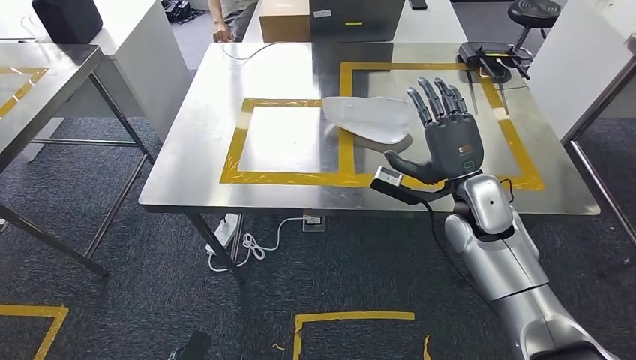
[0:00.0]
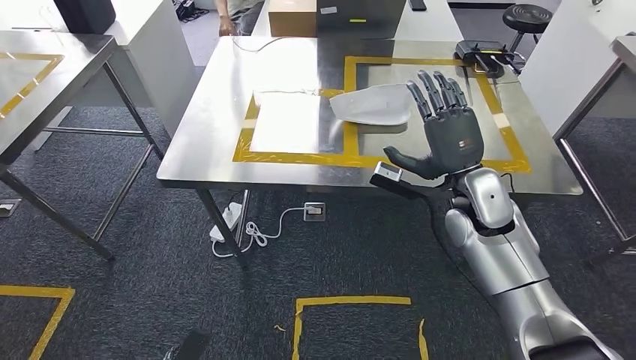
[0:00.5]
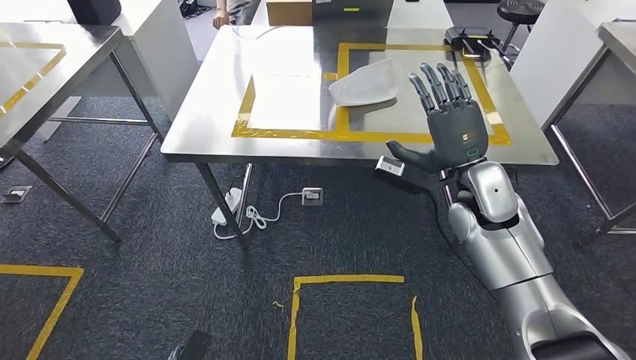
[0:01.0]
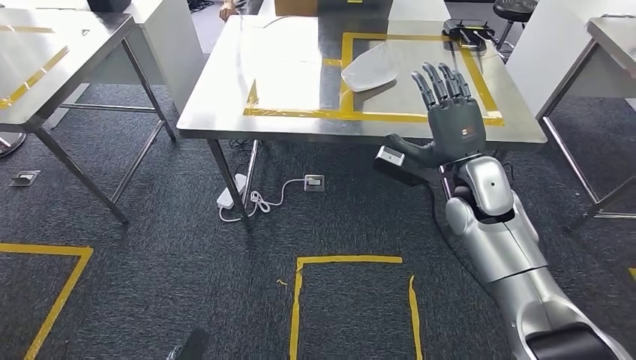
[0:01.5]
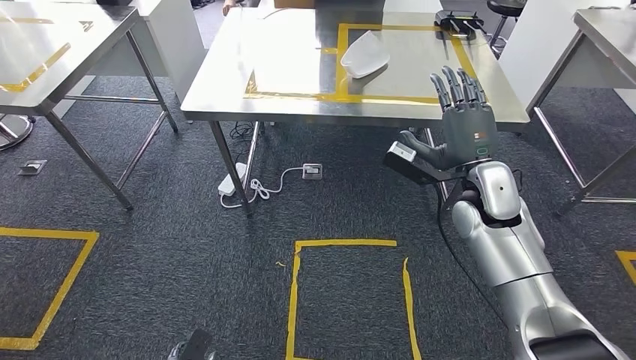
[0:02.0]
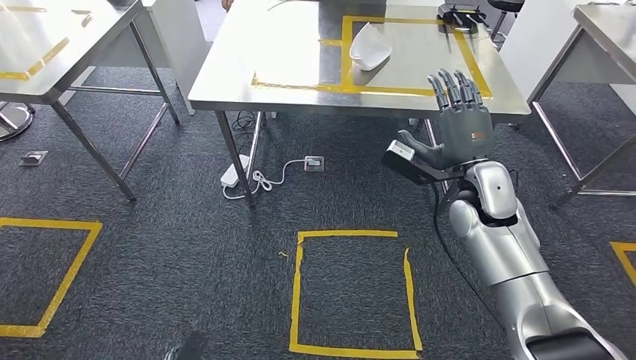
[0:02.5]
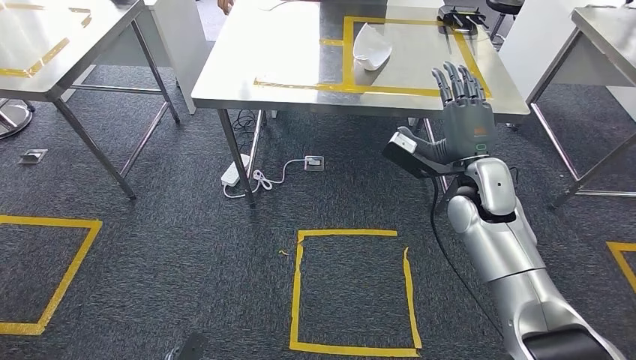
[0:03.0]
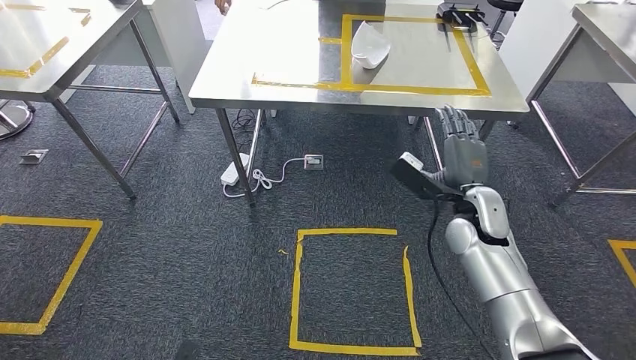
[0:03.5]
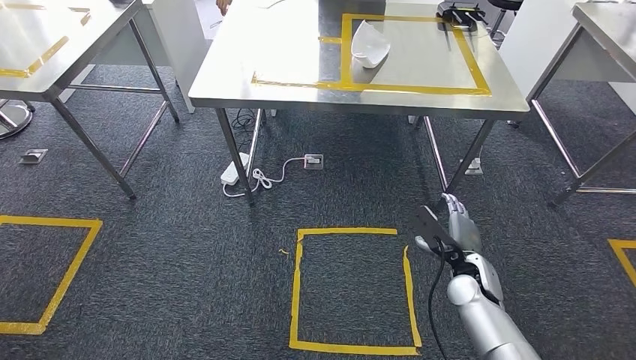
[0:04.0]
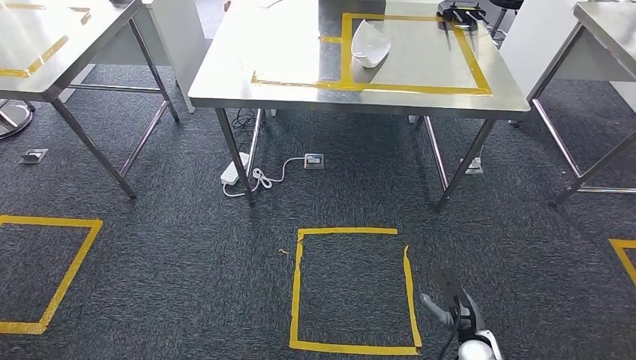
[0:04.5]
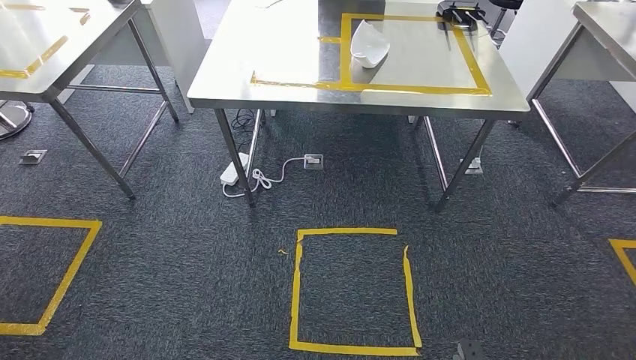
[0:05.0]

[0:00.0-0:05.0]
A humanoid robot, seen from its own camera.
Step, 0:00.0 to 0:05.0: Return to the initial position at the workbench.
0:02.5 to 0:05.0: The right hand is displaced backward and downward by approximately 50 cm, while the left hand goes some 10 cm backward.
